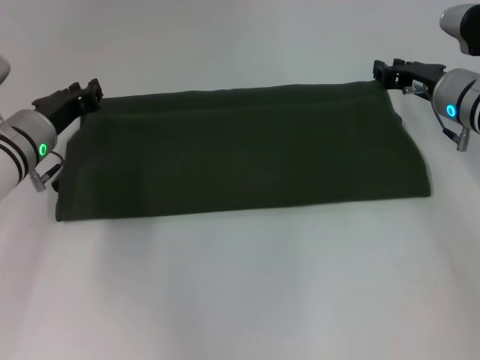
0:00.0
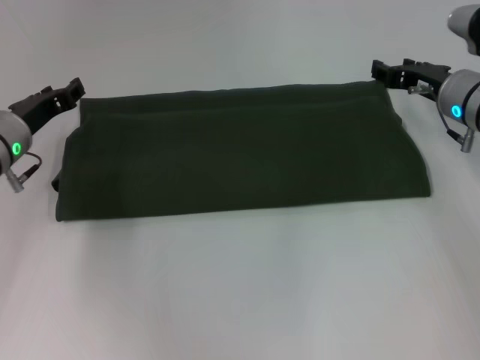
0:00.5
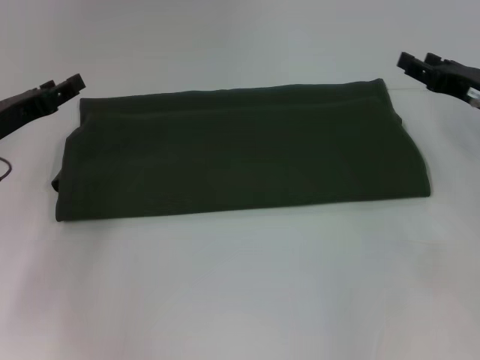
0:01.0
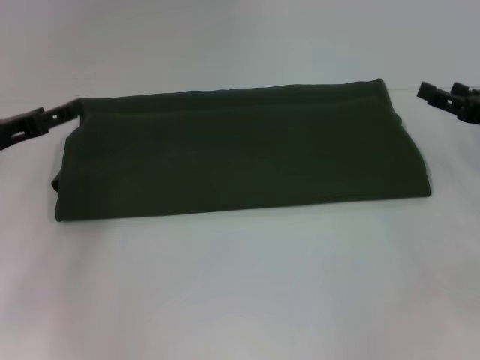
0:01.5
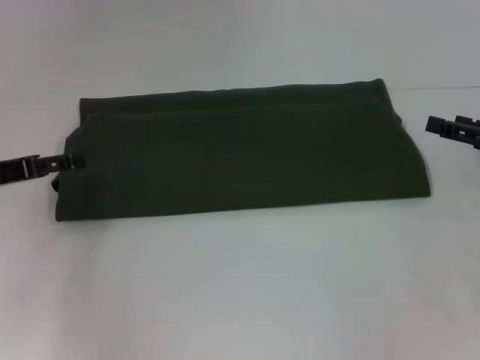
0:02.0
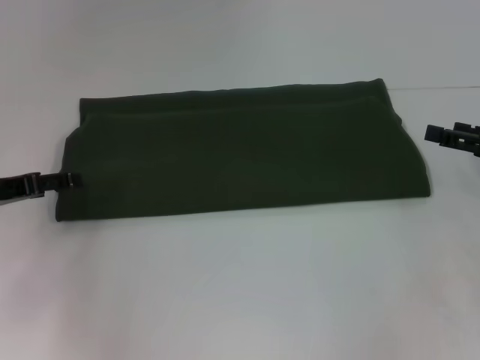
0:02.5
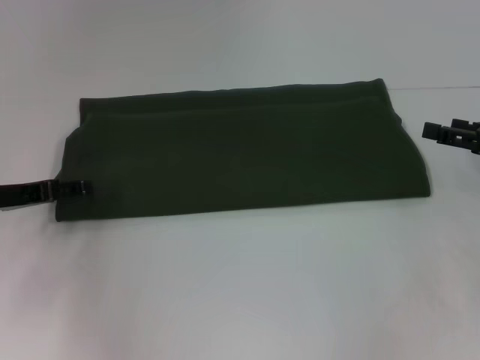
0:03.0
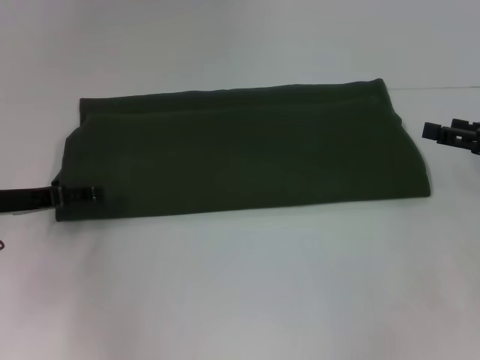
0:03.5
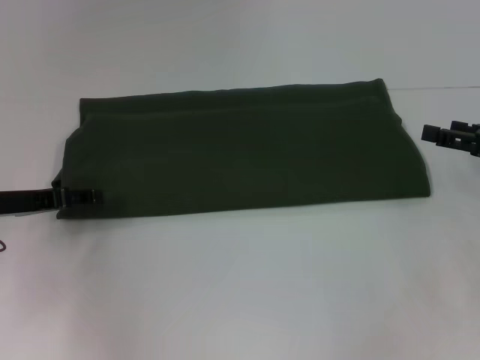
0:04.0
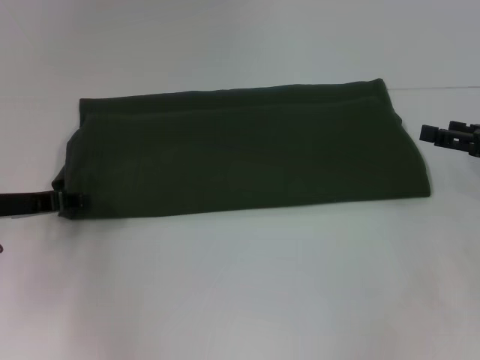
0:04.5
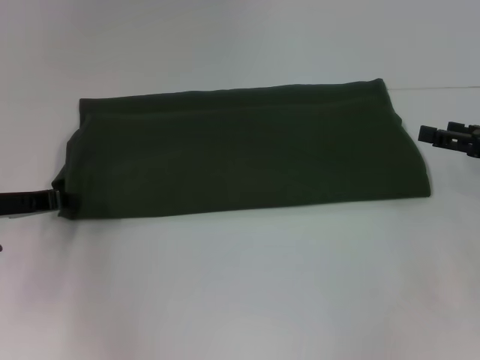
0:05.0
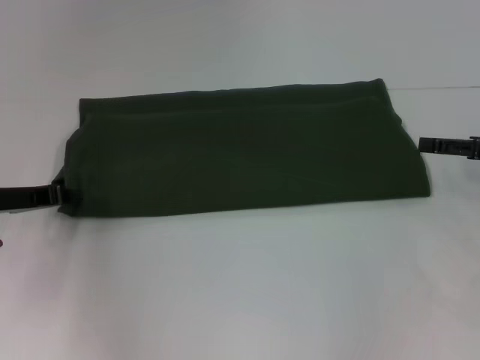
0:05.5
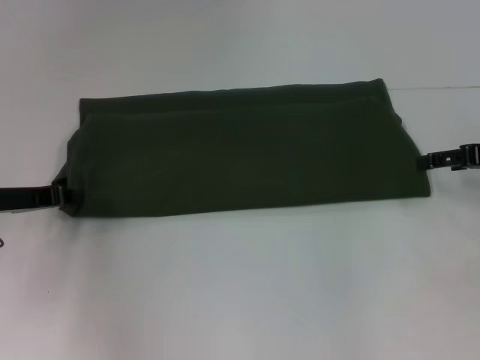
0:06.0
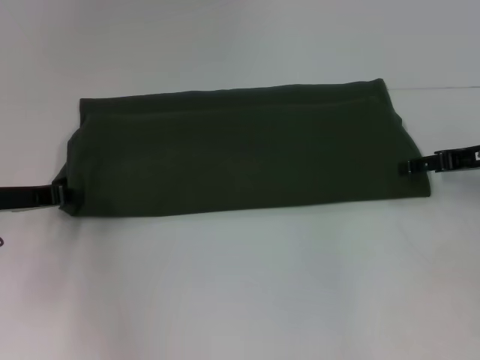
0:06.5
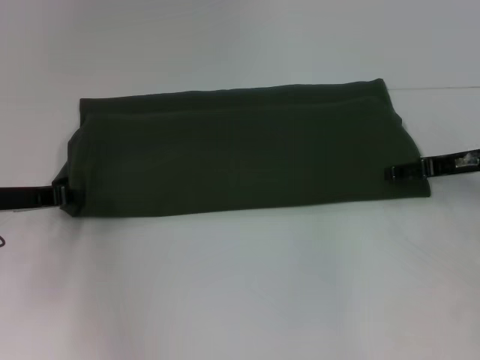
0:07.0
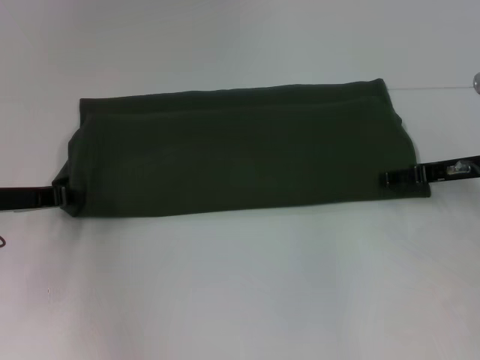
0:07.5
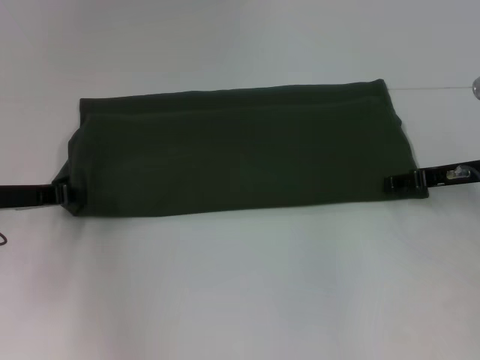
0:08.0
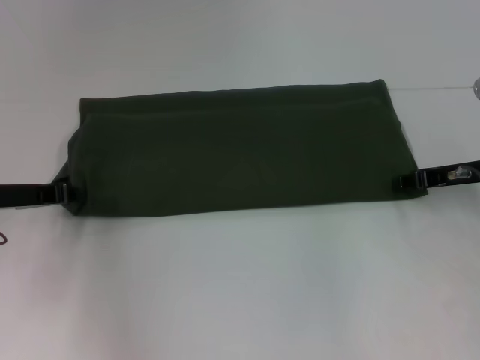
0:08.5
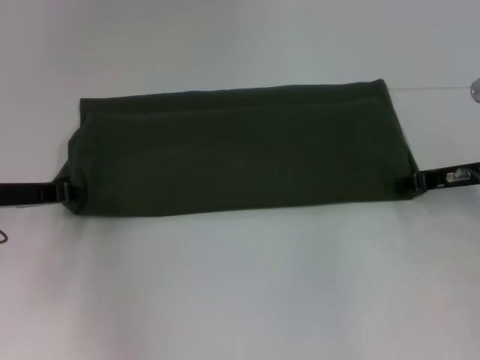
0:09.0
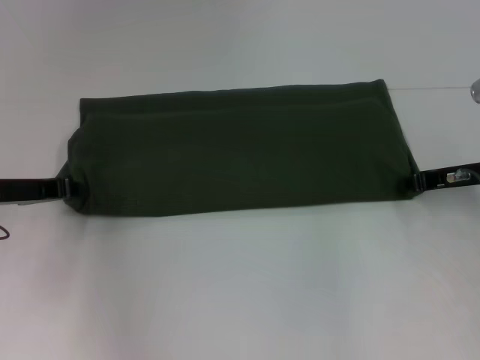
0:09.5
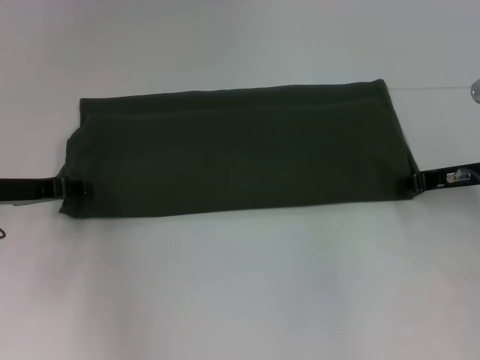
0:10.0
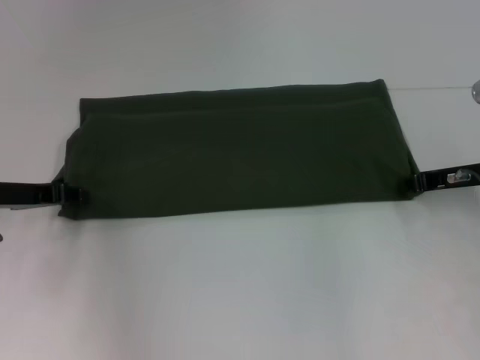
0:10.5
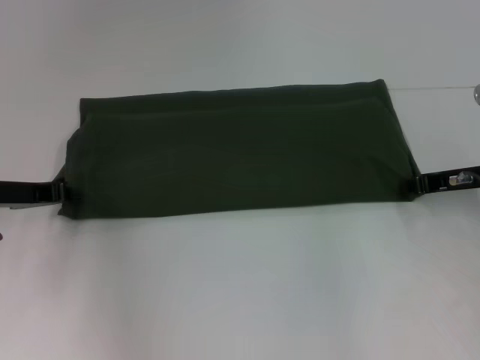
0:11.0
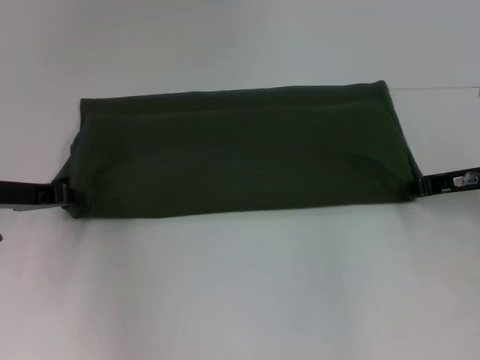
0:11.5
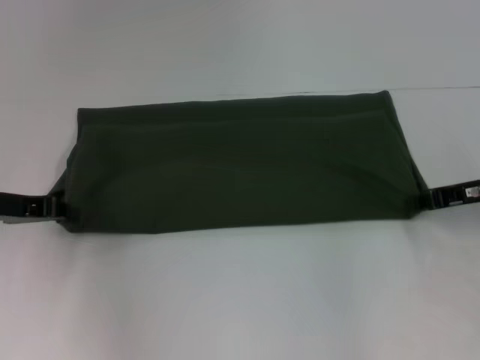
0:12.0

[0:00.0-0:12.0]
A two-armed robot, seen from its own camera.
0:00.0 to 0:02.0: The right gripper shifts approximately 15 cm to the right and backward, and opens; the left gripper travels to the left and backward by about 10 cm, and opens.
0:02.0 to 0:04.0: The grippers stay close to where they were, moving slightly.
0:04.0 to 0:06.0: The left gripper closes its fingers.
0:06.0 to 0:08.0: The right gripper is displaced to the left by approximately 5 cm.
0:08.0 to 0:10.0: The left gripper opens.
0:10.0 to 0:12.0: The left gripper closes up.

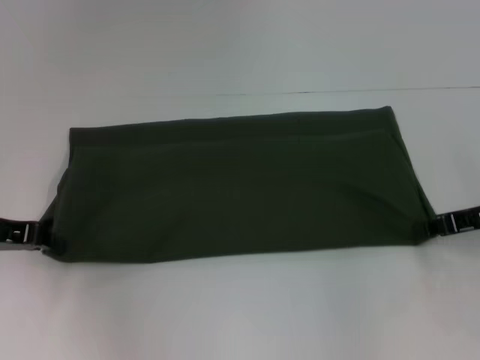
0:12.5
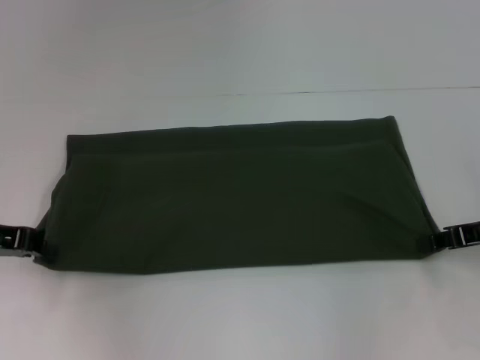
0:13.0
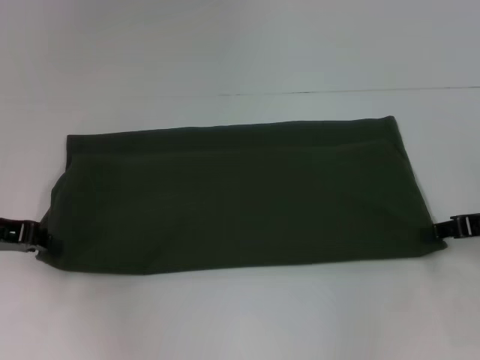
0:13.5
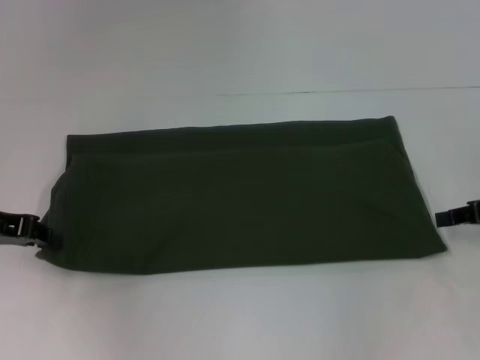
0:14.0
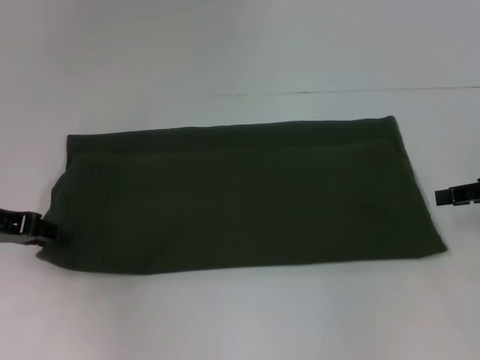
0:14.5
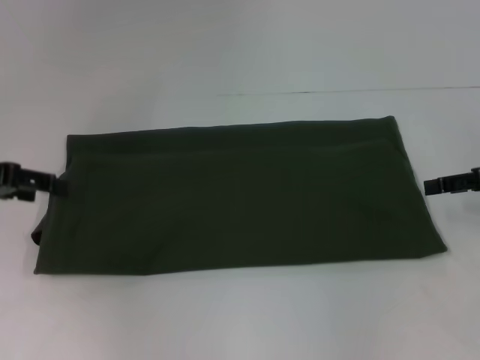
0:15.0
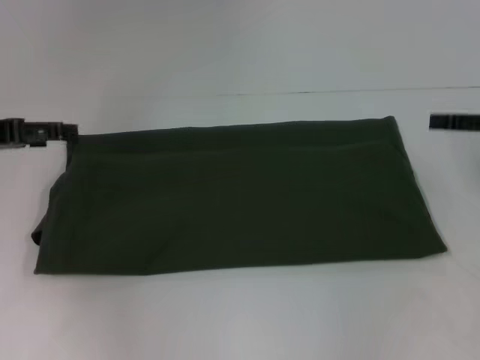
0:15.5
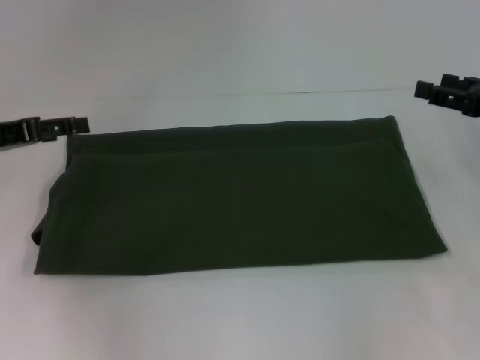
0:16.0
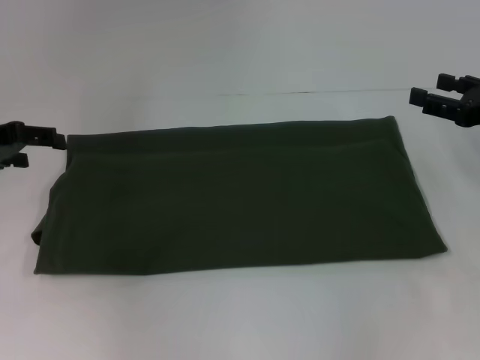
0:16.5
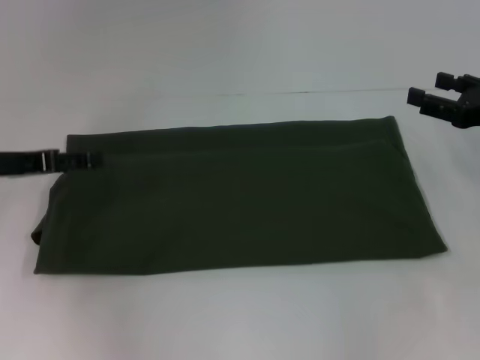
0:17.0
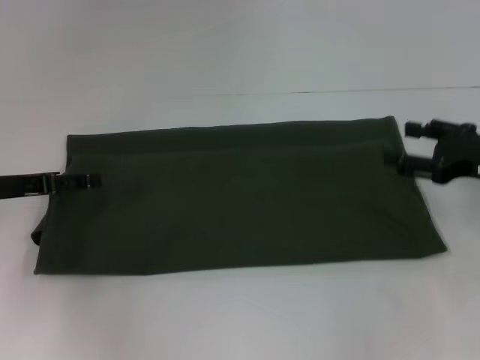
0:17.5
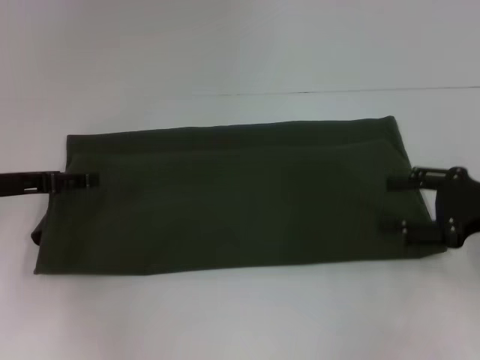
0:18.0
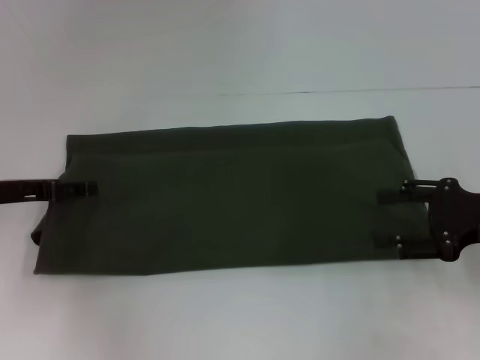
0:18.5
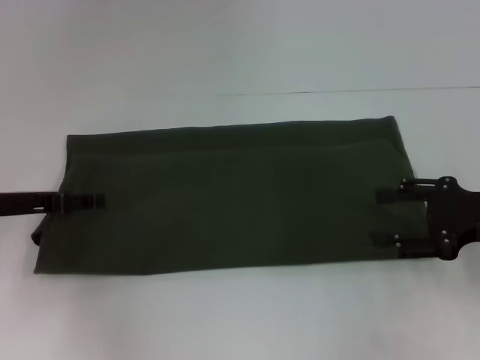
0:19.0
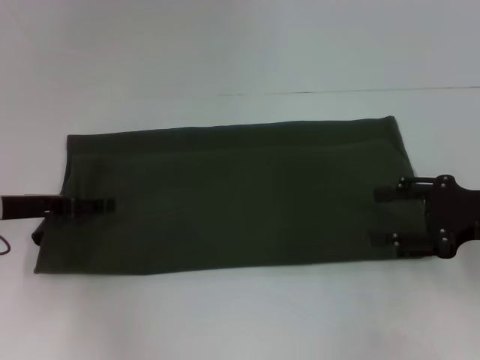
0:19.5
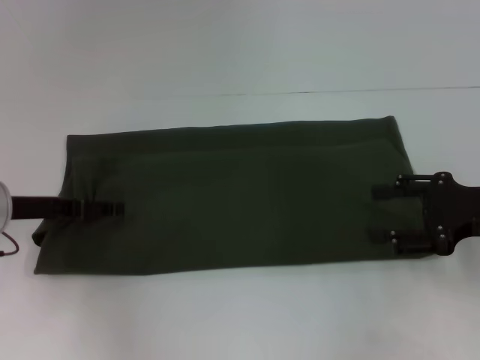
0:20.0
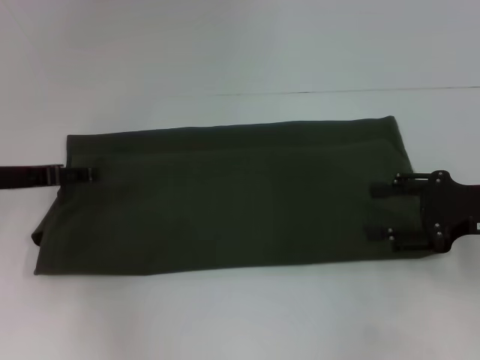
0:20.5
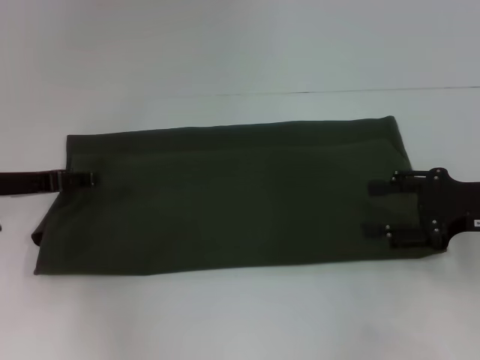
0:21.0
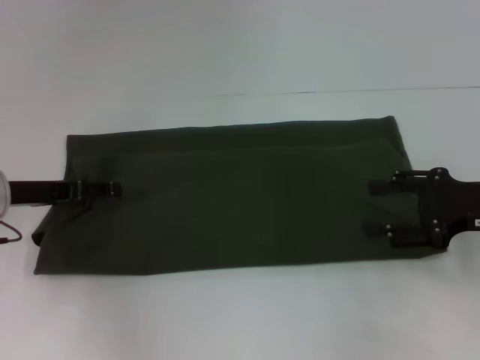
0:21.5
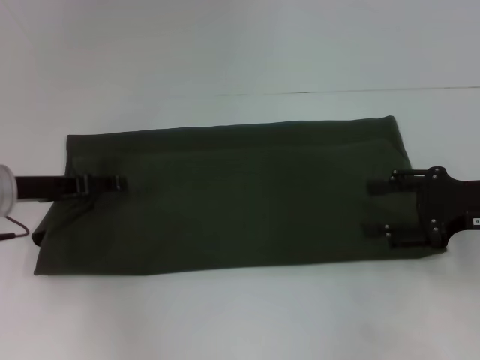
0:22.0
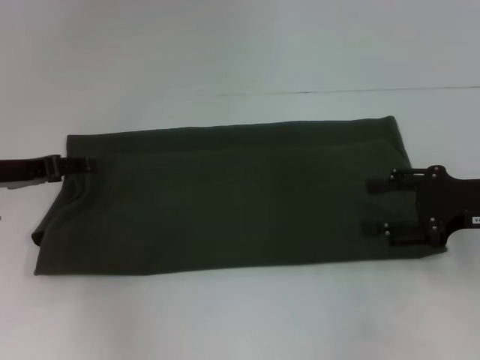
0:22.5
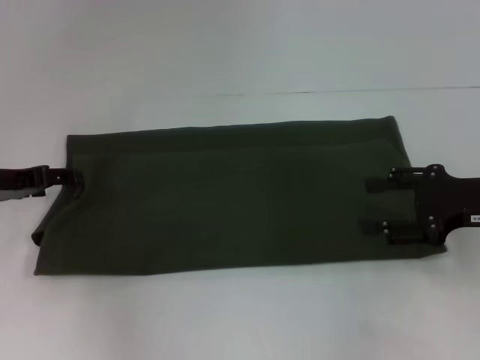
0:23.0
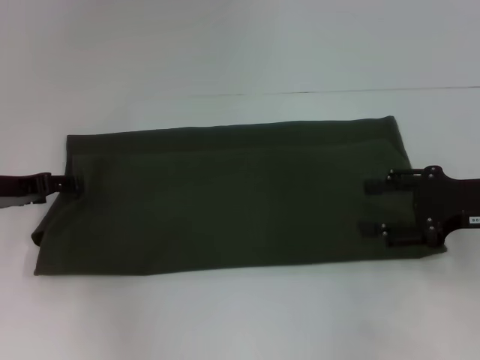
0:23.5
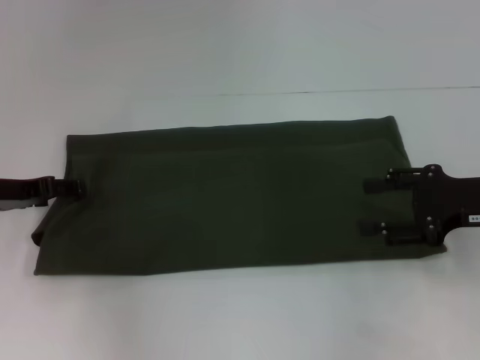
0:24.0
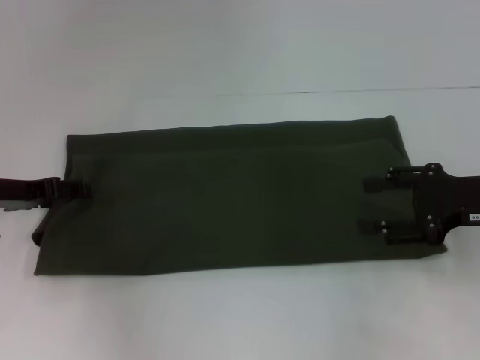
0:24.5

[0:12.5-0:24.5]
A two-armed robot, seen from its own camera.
0:12.5 to 0:14.5: The right gripper changes place by about 5 cm, and opens its fingers.
0:14.5 to 0:16.5: The left gripper ends up some 5 cm from where it was, and opens its fingers. The right gripper opens up.
0:16.5 to 0:18.5: The left gripper heads downward, covering roughly 5 cm. The right gripper travels backward by roughly 5 cm.
0:18.5 to 0:24.5: The grippers make only small movements.

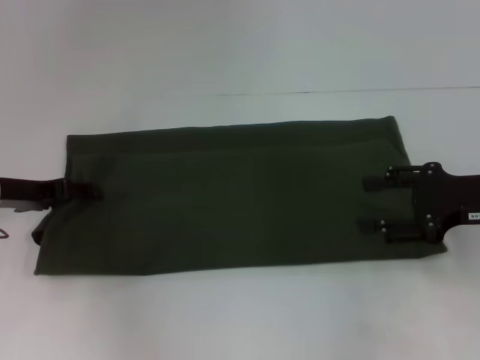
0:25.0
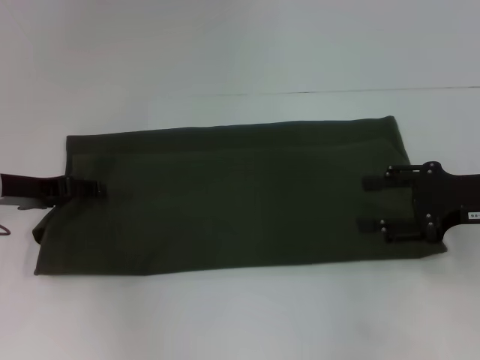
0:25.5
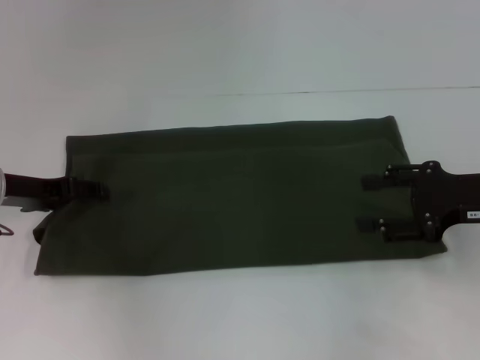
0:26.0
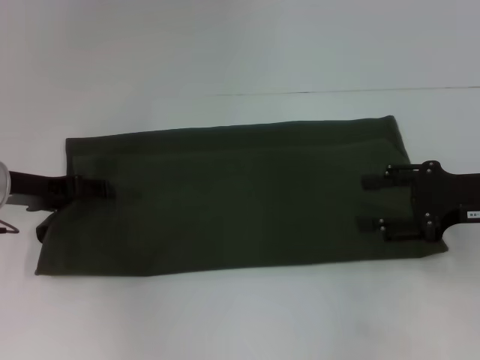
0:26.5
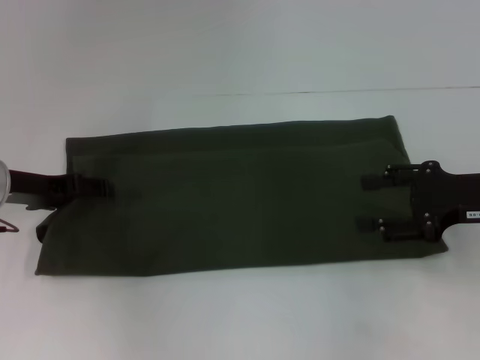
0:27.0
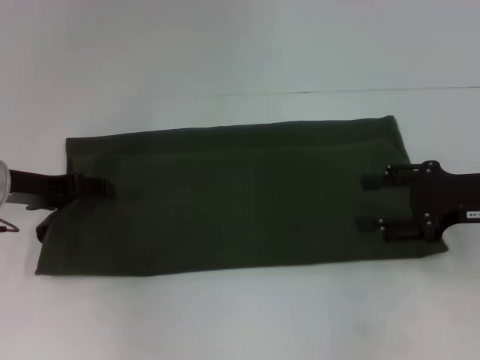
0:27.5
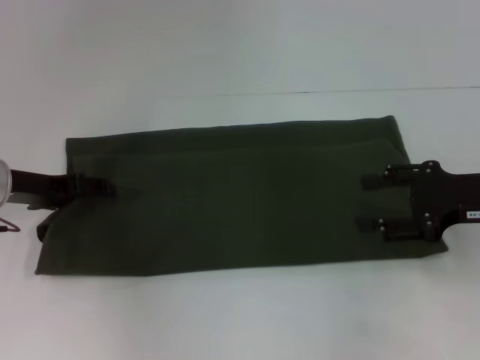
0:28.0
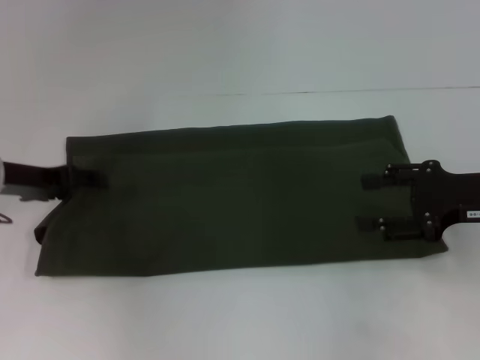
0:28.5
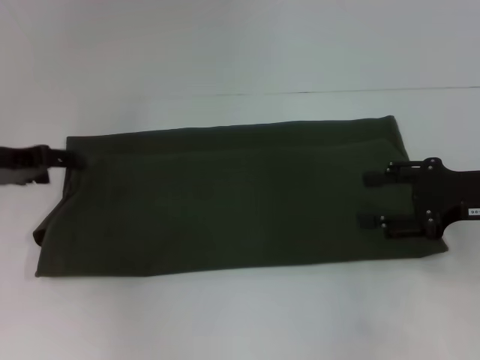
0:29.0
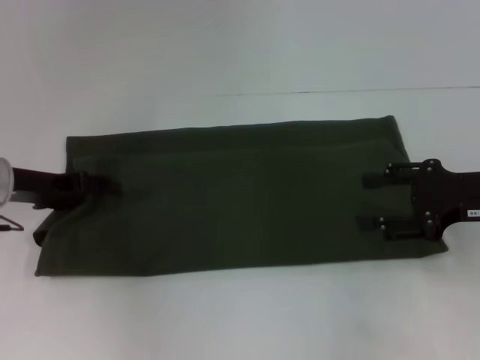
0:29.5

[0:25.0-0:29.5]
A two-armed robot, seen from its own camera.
0:25.0 to 0:29.5: The grippers make only small movements.
